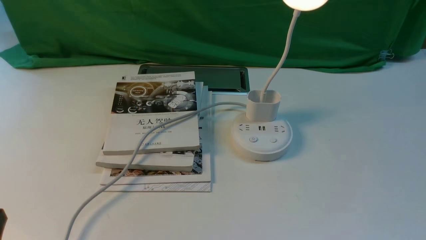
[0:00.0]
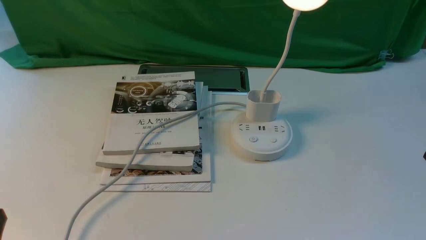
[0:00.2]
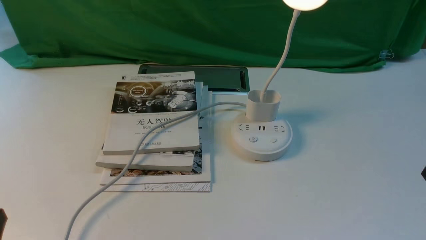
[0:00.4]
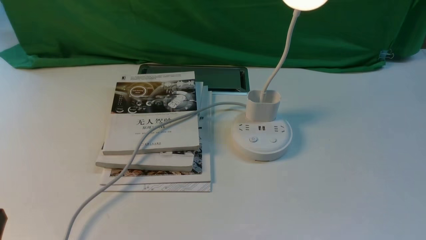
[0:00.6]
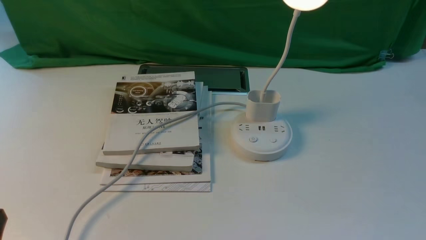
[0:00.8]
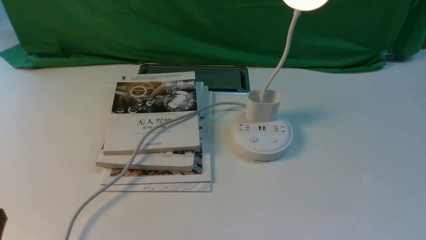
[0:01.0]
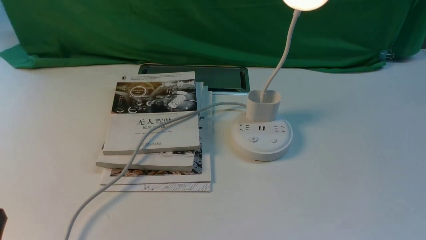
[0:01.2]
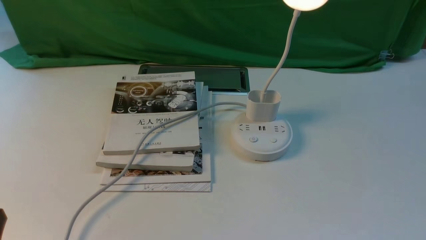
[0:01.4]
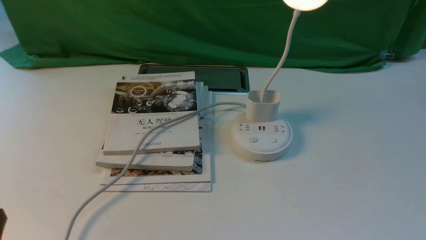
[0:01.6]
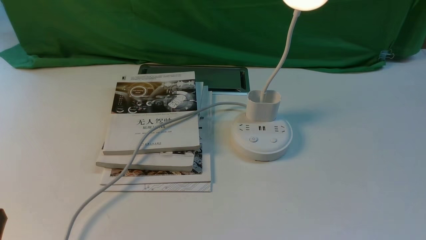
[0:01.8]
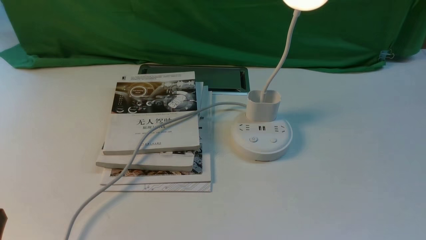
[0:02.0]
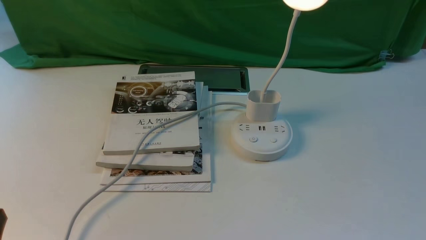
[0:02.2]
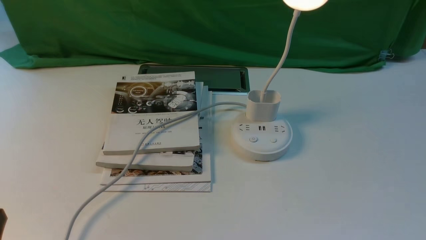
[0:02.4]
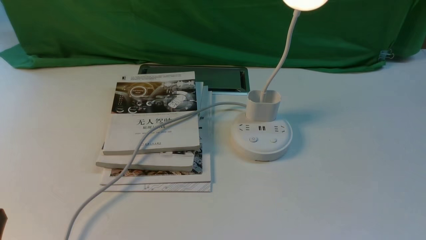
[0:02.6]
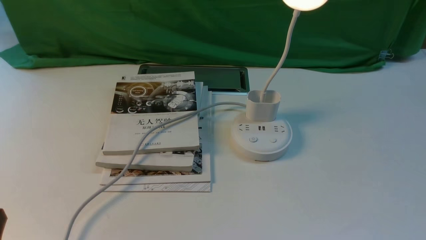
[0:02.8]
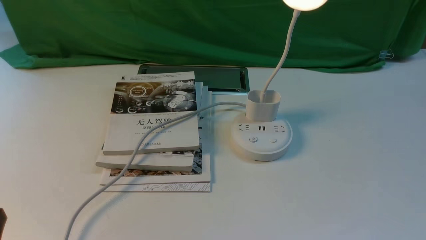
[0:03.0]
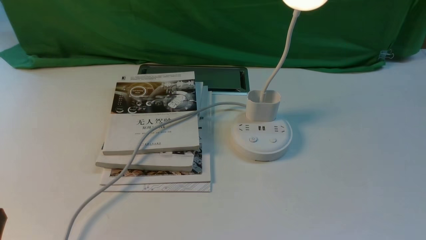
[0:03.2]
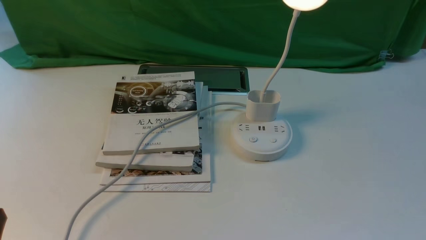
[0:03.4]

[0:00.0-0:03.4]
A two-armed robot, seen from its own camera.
0:01.6 to 0:03.4: Both grippers stay put.
